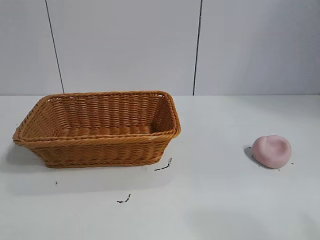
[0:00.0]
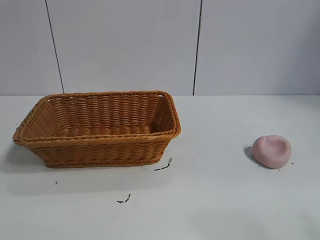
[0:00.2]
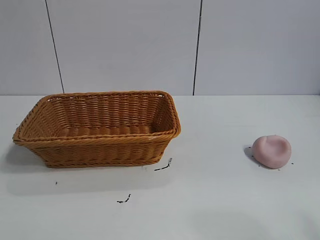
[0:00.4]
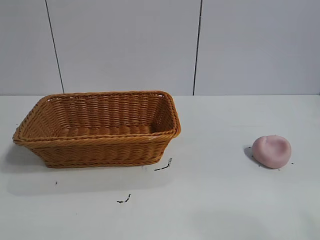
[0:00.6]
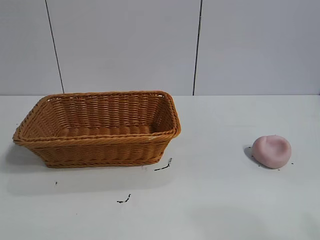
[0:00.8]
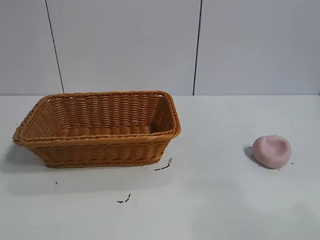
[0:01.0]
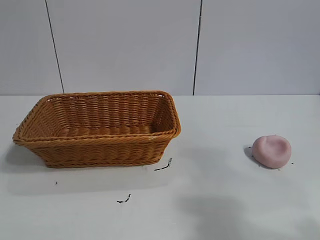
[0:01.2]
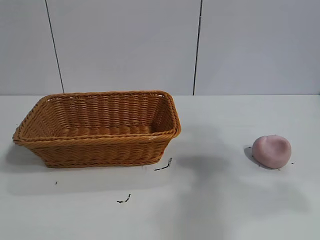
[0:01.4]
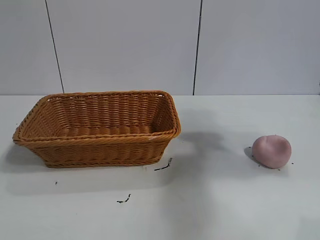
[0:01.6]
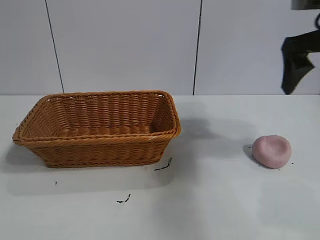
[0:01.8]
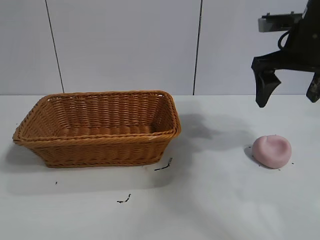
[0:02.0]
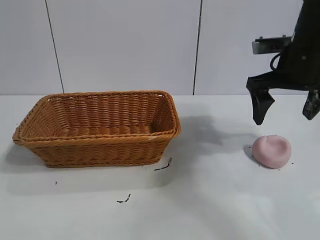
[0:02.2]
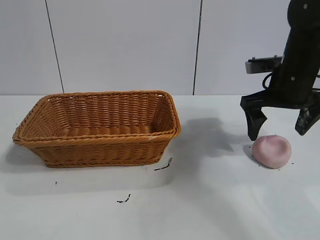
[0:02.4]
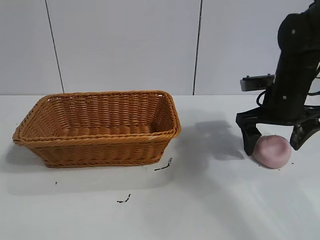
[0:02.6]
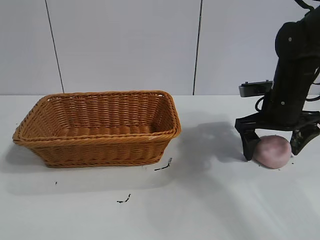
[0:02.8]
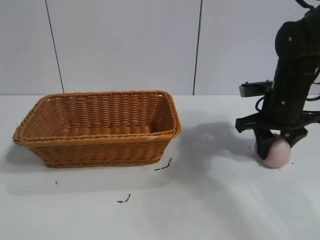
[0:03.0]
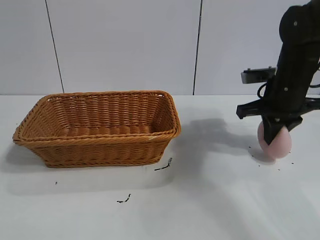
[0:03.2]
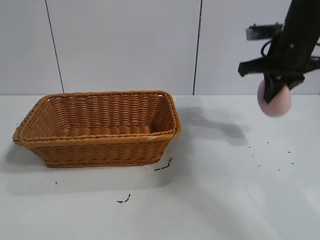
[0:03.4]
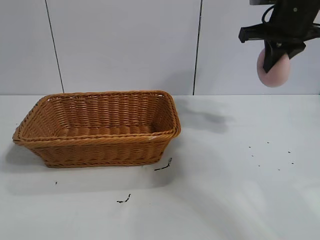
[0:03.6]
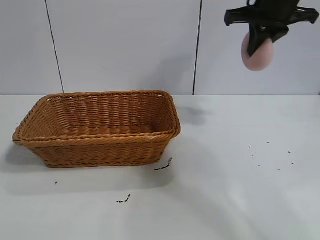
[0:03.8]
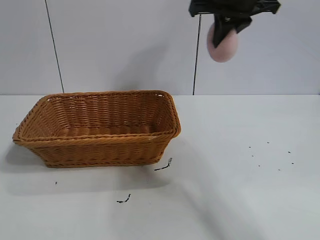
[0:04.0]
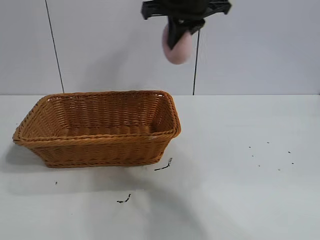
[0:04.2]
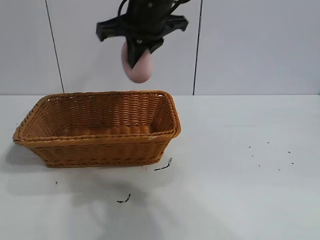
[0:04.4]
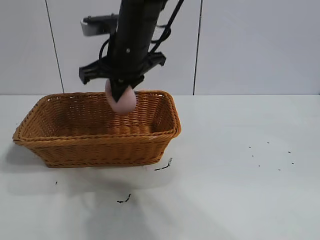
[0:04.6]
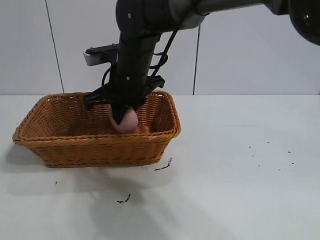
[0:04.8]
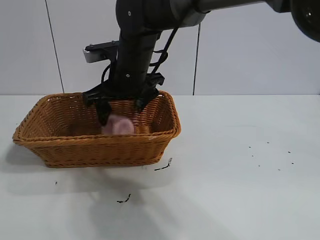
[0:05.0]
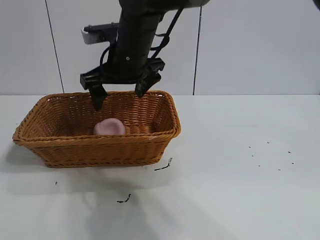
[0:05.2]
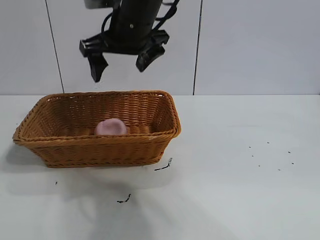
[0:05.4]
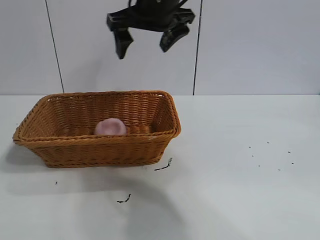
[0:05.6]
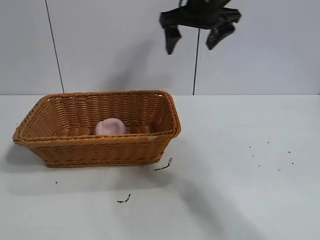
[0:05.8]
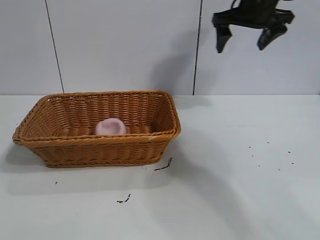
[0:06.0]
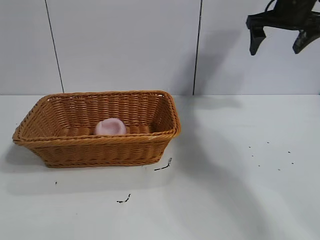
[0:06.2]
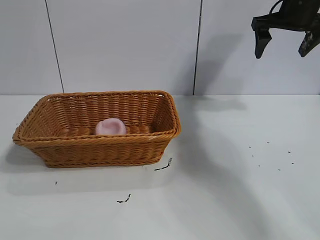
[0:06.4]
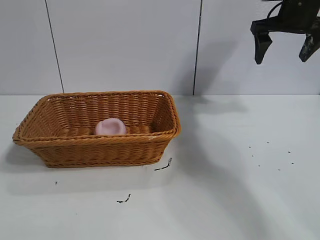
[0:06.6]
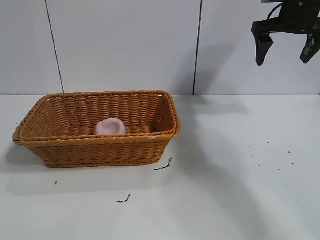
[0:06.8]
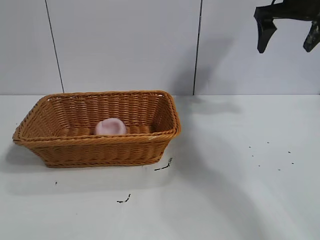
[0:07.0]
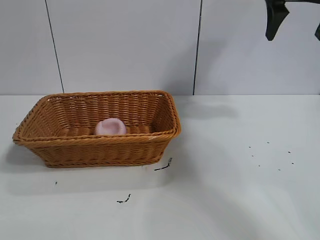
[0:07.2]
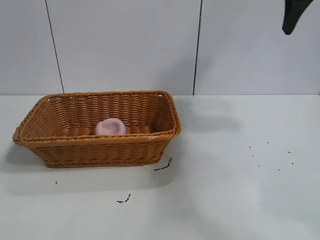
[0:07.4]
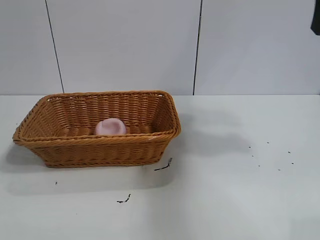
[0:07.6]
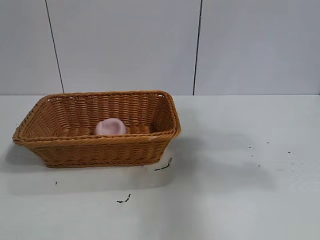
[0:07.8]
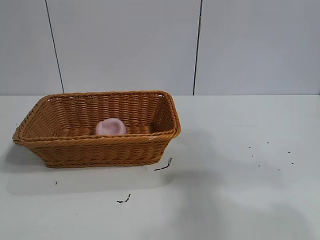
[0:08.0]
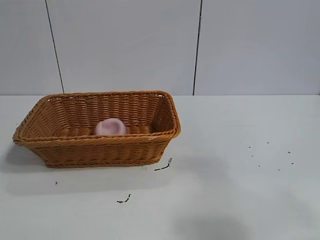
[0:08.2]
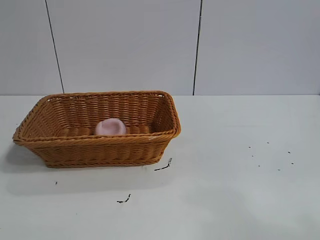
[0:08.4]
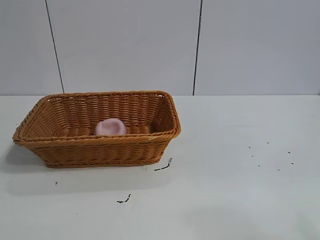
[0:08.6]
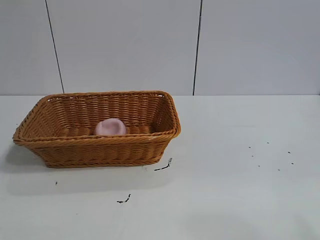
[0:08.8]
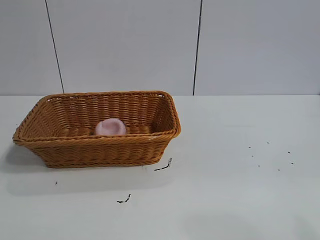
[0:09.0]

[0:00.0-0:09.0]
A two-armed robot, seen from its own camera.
Task of the whole recording: pick up the peach and put it into the basket.
Step, 0:00.8 to 0:03.0: Grasp the peach with right gripper.
Step, 0:03.2 to 0:05.0: Place the peach in the basket with right gripper.
